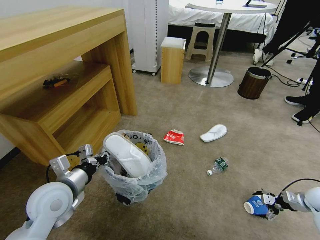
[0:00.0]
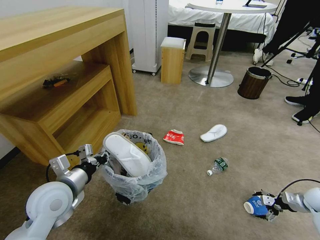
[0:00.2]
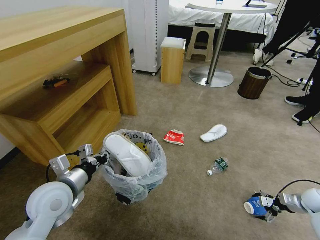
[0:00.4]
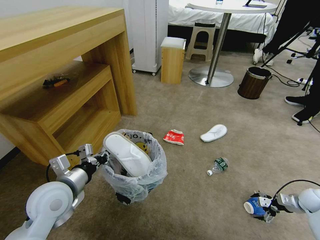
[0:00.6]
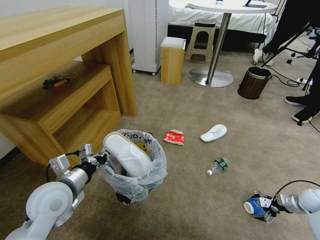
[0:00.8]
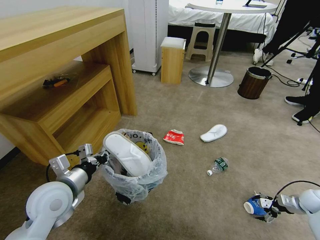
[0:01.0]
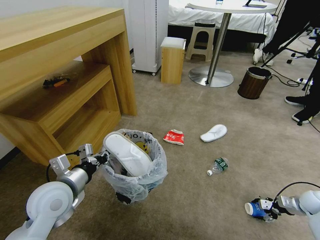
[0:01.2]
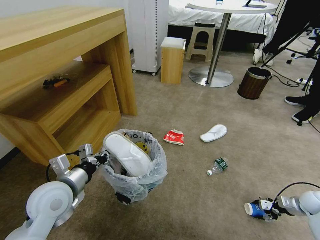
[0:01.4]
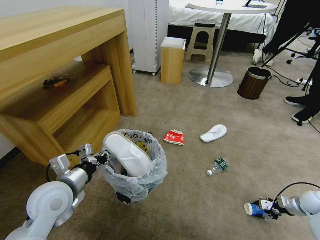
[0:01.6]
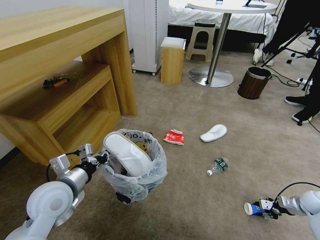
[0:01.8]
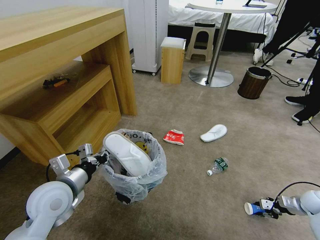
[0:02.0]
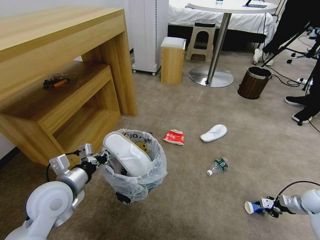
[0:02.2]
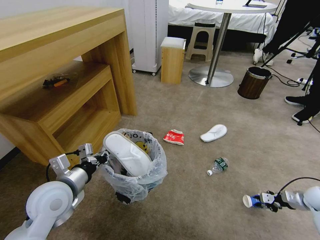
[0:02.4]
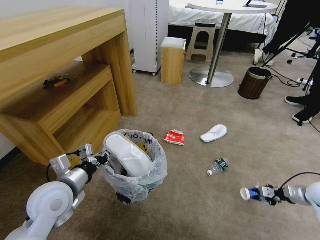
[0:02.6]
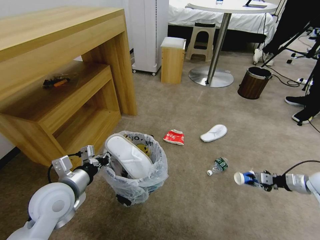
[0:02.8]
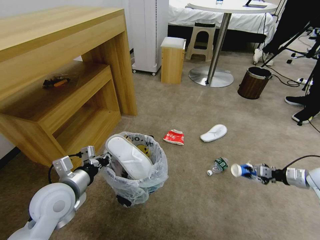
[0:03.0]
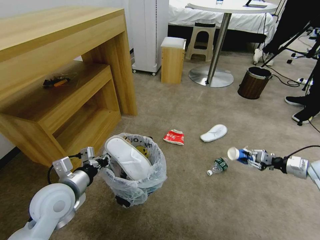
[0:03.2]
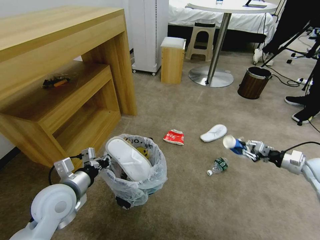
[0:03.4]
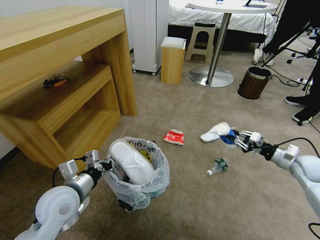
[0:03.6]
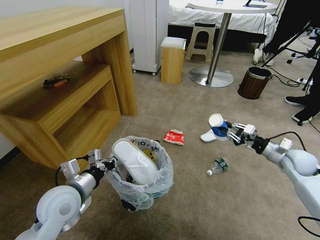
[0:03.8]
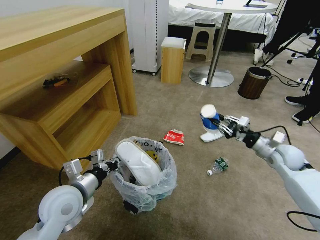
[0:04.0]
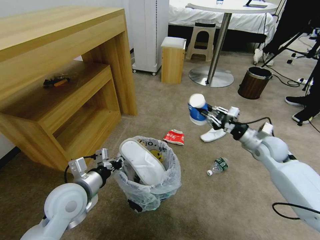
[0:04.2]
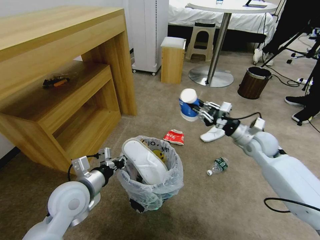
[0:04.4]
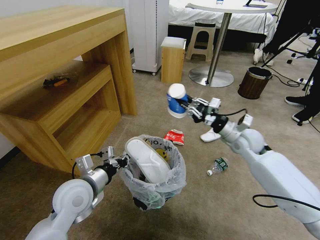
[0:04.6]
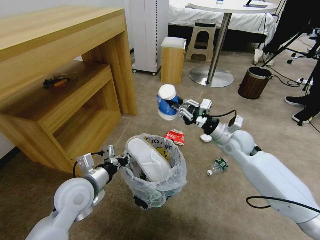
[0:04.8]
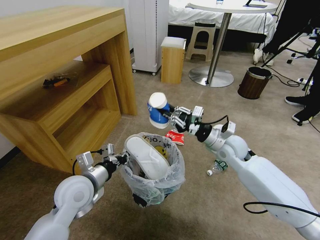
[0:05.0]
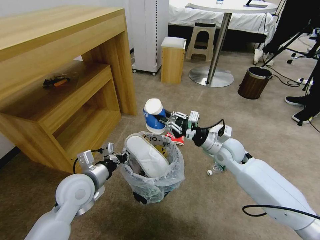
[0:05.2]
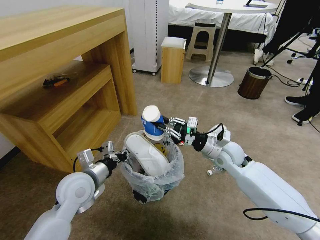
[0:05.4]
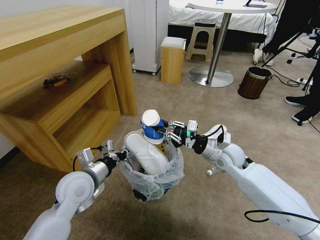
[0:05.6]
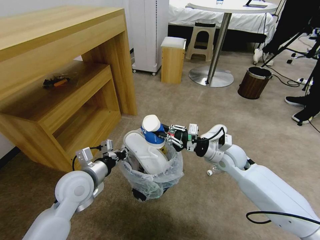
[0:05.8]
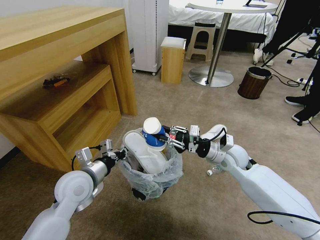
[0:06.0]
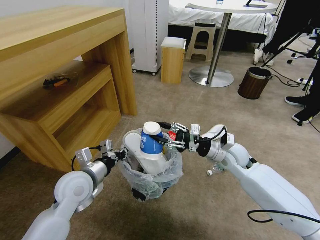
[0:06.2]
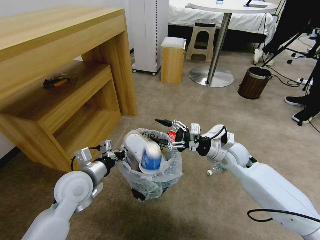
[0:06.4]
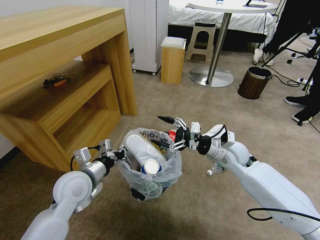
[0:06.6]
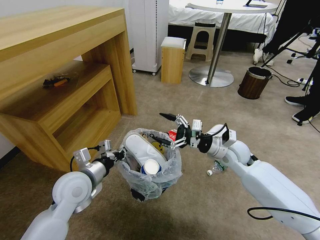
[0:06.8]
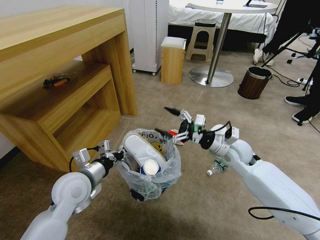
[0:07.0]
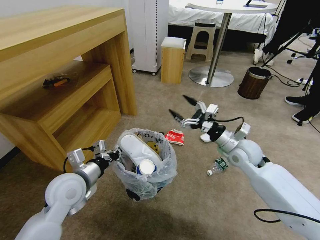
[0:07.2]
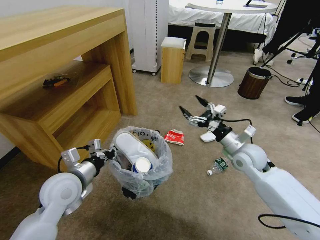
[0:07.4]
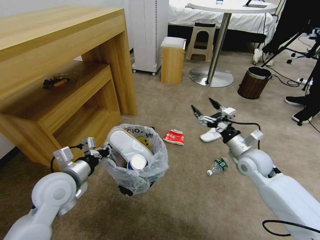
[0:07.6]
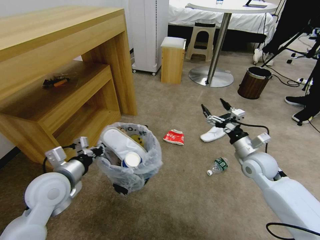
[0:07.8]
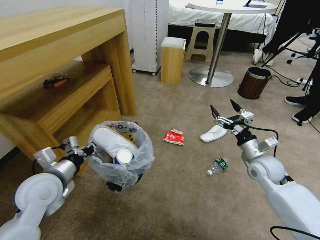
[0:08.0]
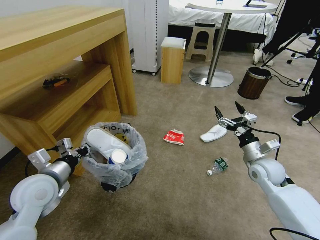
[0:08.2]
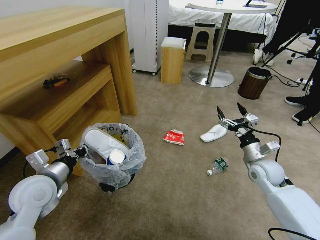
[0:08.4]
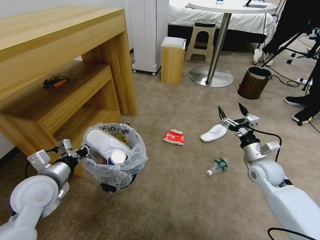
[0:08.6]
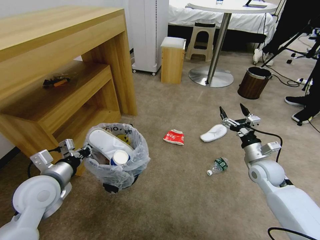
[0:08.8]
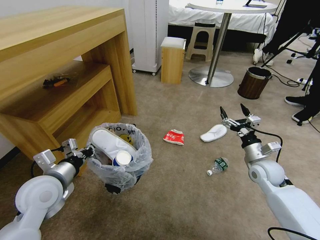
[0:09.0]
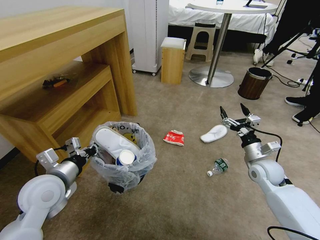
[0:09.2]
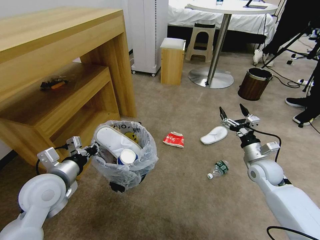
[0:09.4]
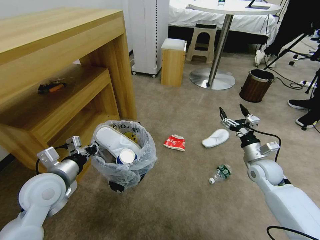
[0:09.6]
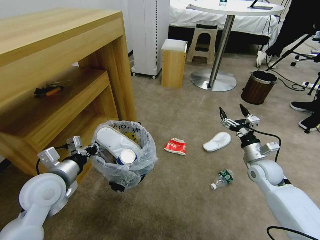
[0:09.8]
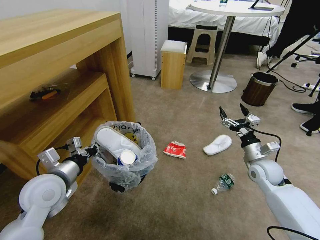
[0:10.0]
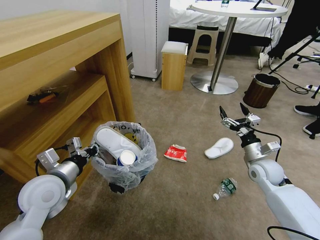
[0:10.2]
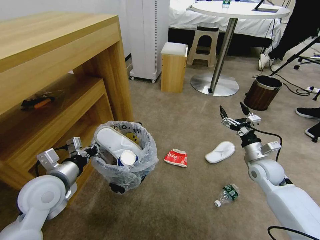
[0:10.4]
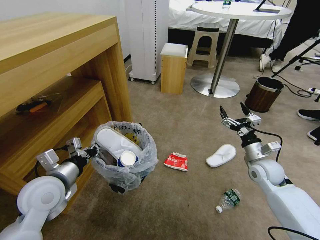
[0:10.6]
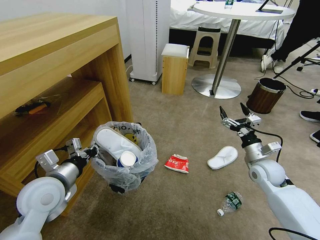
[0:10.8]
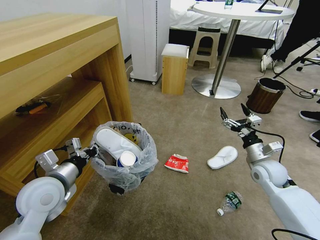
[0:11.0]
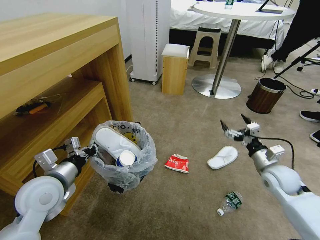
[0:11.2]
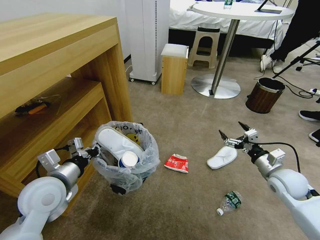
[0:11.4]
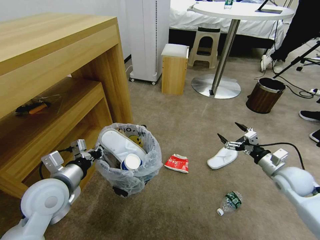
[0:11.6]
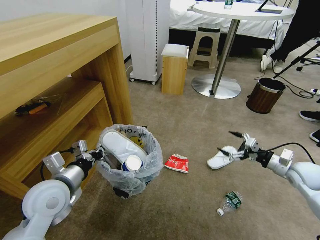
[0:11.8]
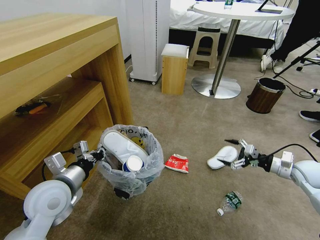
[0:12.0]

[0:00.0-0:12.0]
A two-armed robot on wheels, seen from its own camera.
Task of the whole recording: Pick up the trash bin and place the garbage on the floor into it.
0:00.0 to 0:01.6: The right gripper closes up.
0:01.6 to 0:03.0: The right gripper shifts approximately 15 cm upward.
0:03.0 to 0:04.4: The right gripper moves to the left, some 20 cm.
0:04.4 to 0:06.0: The right gripper goes approximately 10 cm to the left.
0:06.0 to 0:07.6: The right gripper shifts approximately 5 cm to the right, and opens up.
0:07.6 to 0:09.0: The right gripper is displaced to the right by some 5 cm.
0:10.4 to 0:12.0: The right gripper heads to the right, covering approximately 15 cm.

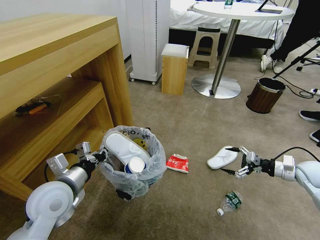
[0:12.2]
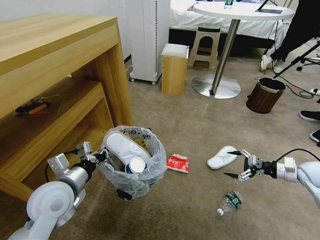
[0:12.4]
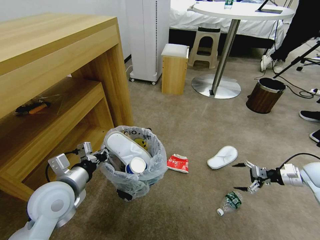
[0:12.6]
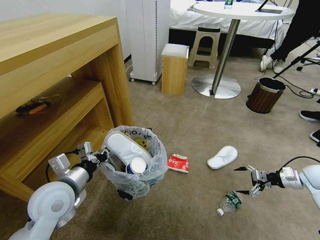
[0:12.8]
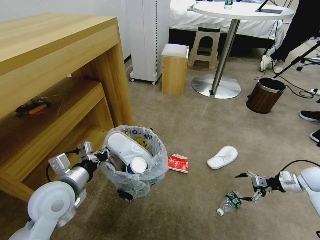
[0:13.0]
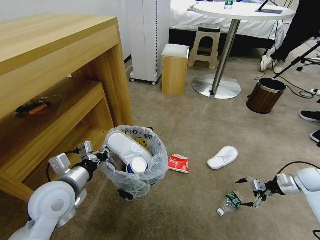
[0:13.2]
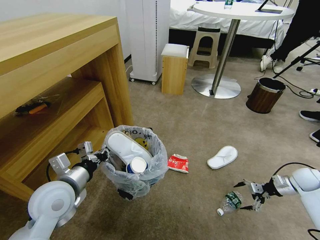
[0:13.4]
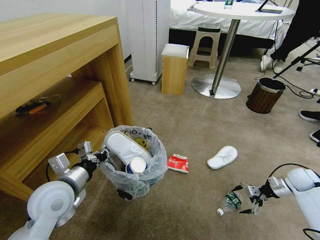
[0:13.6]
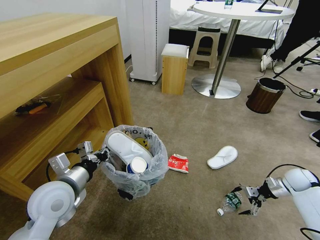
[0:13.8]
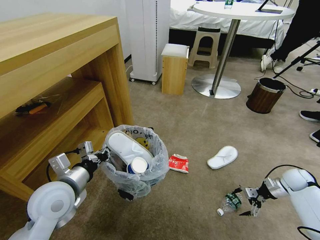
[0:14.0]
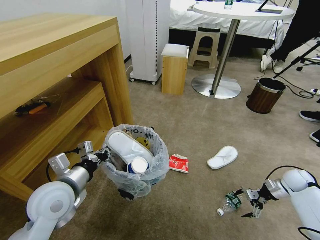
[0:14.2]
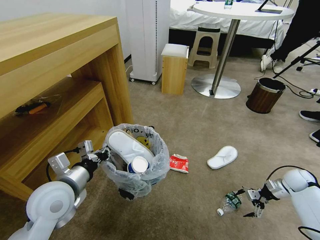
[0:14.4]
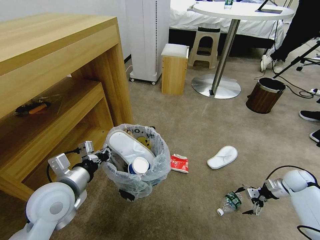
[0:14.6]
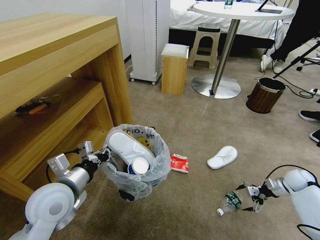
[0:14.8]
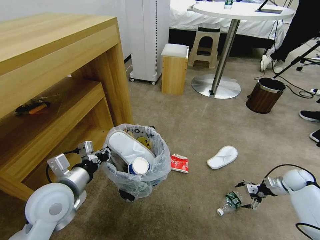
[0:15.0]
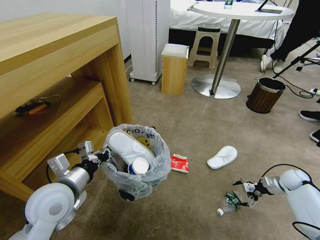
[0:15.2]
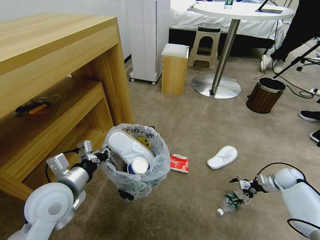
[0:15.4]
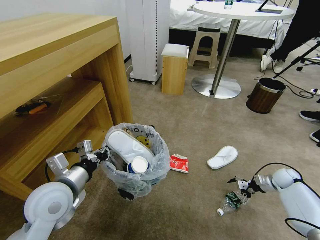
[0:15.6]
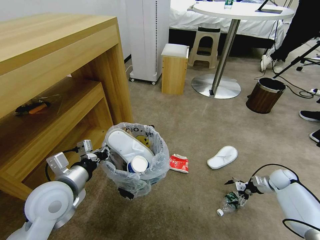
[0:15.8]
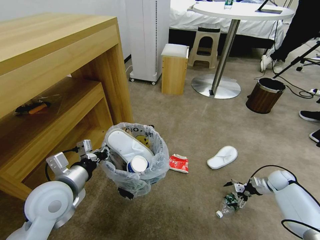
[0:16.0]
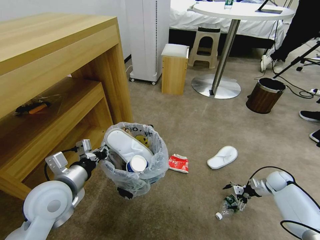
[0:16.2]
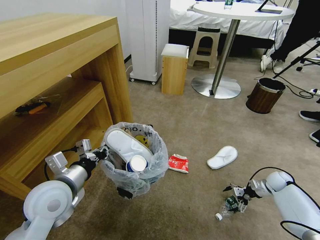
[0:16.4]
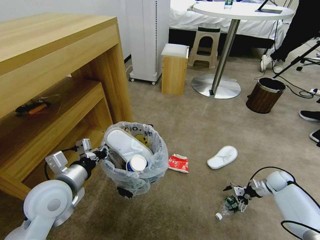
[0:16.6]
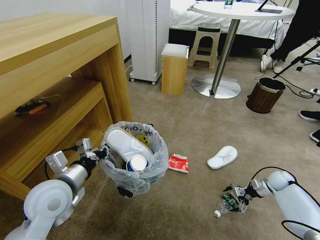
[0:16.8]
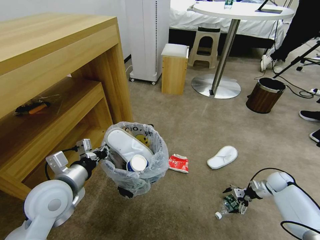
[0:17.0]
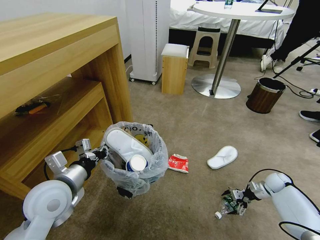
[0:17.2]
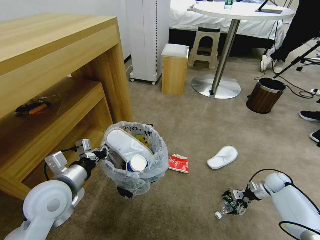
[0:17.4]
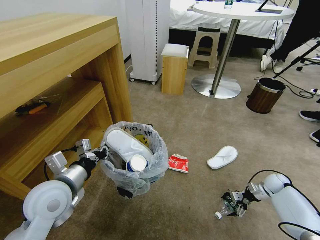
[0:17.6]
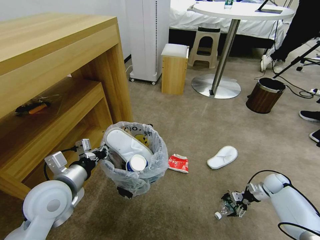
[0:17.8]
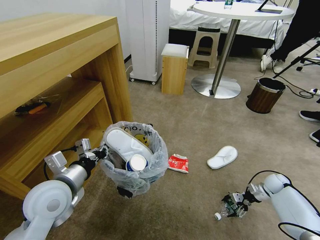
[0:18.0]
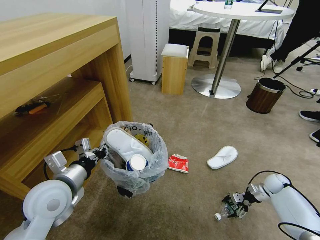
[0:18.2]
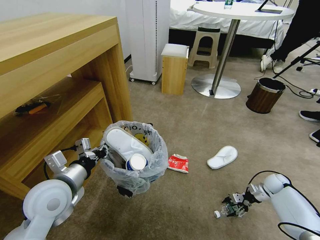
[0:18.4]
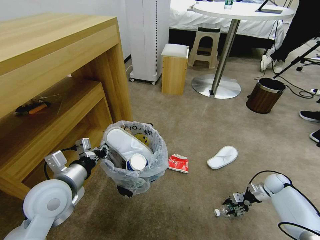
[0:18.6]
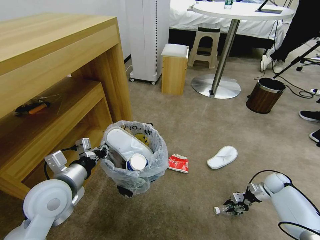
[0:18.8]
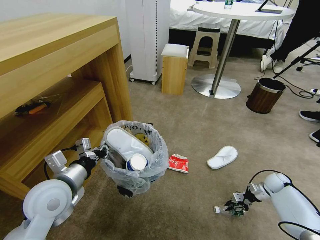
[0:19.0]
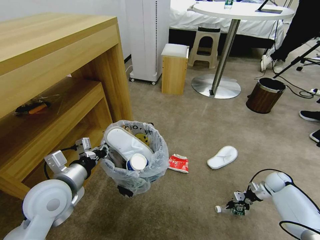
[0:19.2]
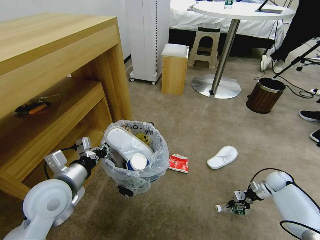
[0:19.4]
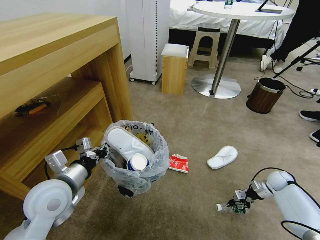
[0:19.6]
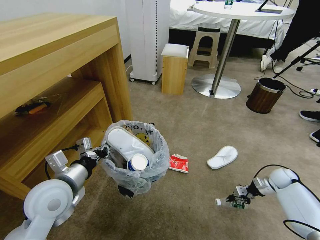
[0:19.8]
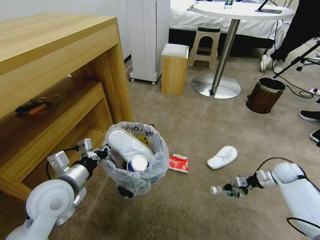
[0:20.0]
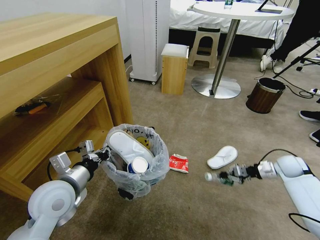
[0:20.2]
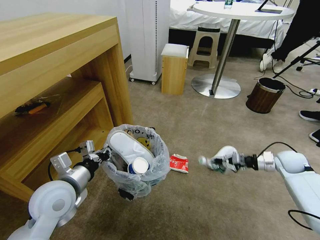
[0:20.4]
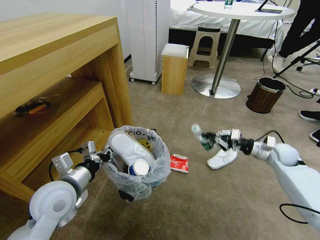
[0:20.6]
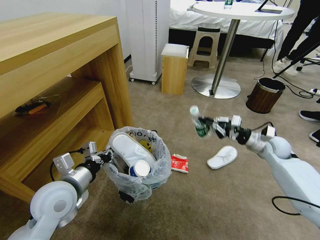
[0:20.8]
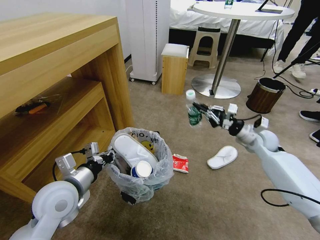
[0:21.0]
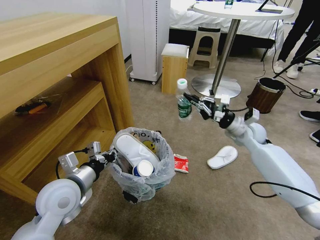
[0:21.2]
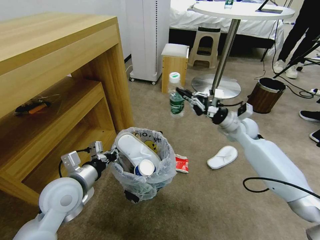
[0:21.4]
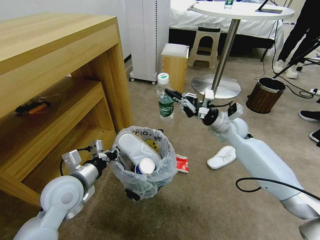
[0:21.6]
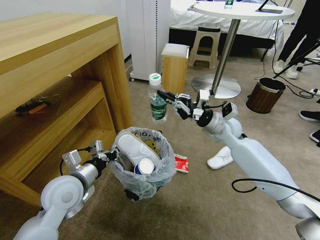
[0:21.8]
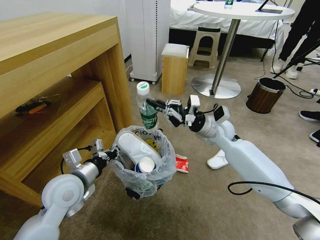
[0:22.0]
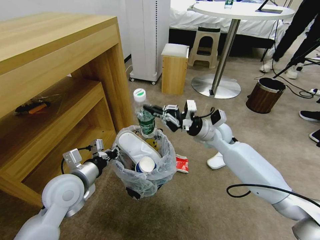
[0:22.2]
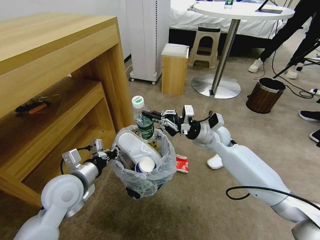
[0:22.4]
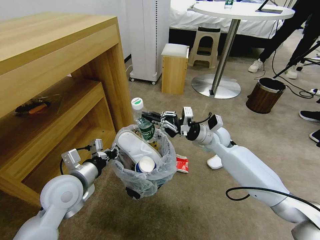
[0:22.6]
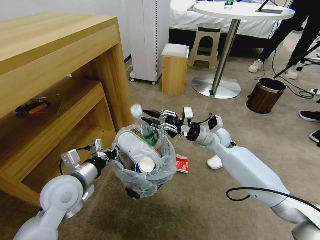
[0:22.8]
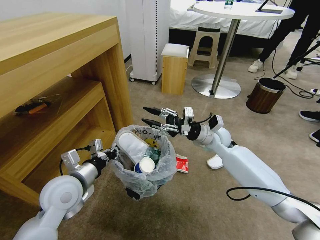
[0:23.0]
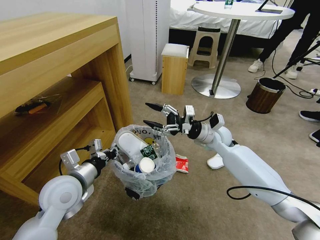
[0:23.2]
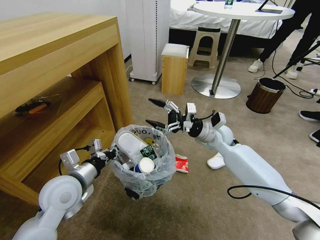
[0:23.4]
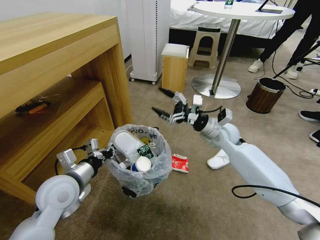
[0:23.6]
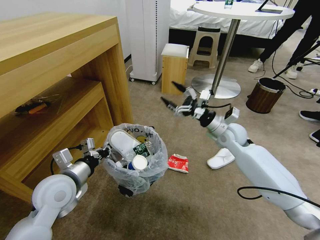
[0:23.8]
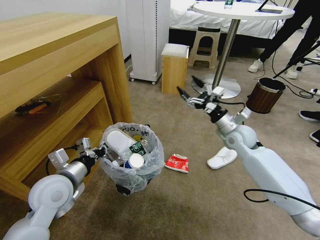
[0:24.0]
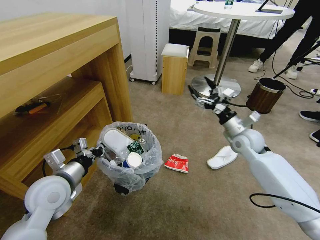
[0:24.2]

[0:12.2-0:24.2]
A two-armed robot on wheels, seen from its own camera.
Task of the whole recording: Pick up the trash bin and place the garbage on the floor into it.
0:12.2 to 0:13.8: The right gripper goes some 10 cm downward.
0:13.8 to 0:15.2: The grippers make only small movements.
0:15.2 to 0:16.6: The grippers stay close to where they were, moving slightly.
0:16.6 to 0:18.2: The grippers move only a little.
0:18.2 to 0:19.8: The right gripper closes its fingers.
0:19.8 to 0:21.2: The right gripper moves upward and to the left, some 30 cm.
0:21.2 to 0:22.6: The right gripper moves to the left, roughly 15 cm.
0:22.6 to 0:24.2: The right gripper goes roughly 10 cm to the right, and opens up.
